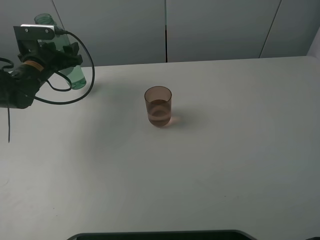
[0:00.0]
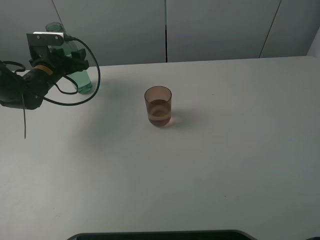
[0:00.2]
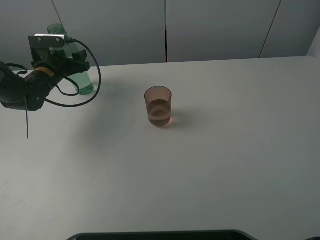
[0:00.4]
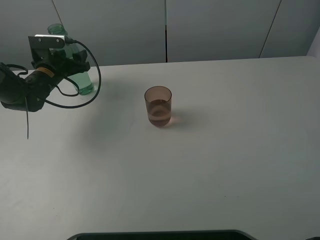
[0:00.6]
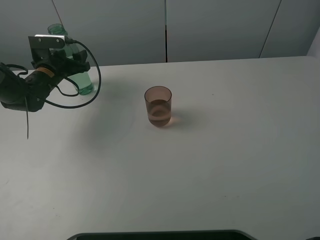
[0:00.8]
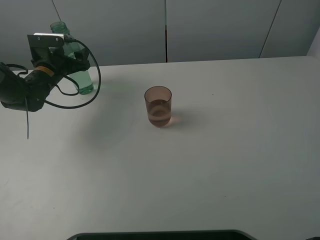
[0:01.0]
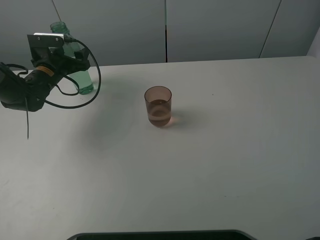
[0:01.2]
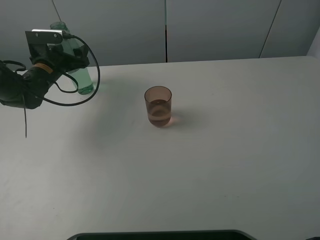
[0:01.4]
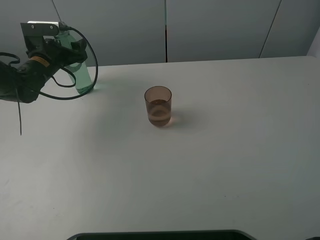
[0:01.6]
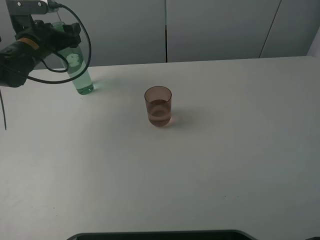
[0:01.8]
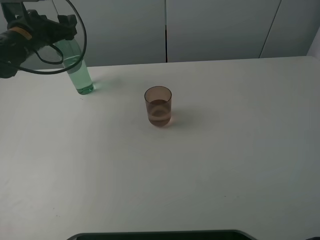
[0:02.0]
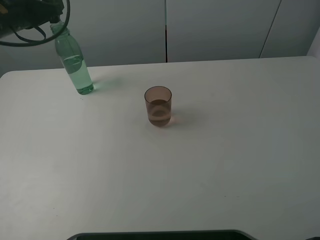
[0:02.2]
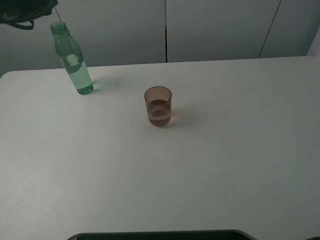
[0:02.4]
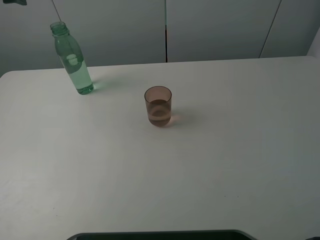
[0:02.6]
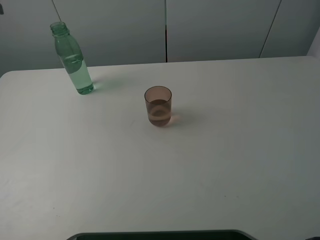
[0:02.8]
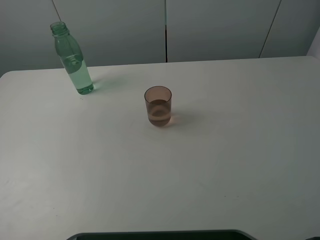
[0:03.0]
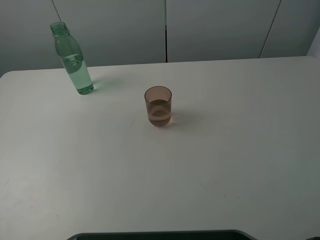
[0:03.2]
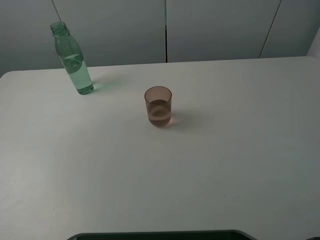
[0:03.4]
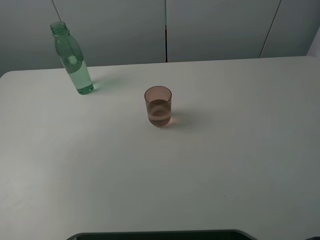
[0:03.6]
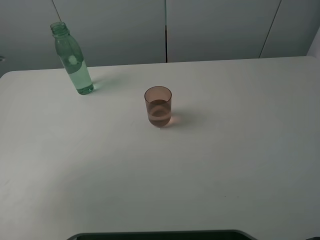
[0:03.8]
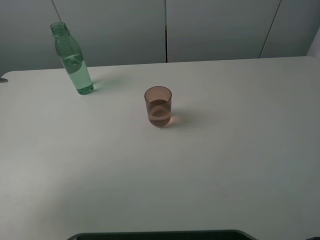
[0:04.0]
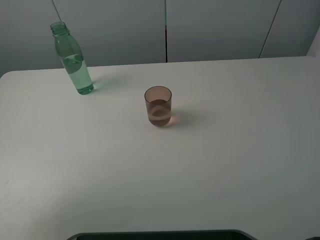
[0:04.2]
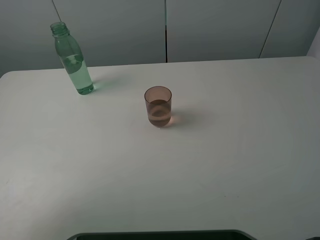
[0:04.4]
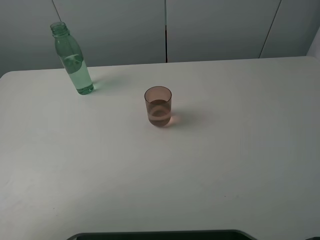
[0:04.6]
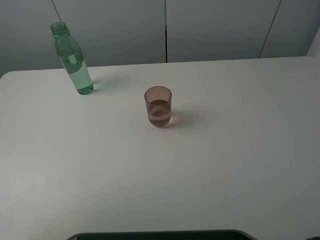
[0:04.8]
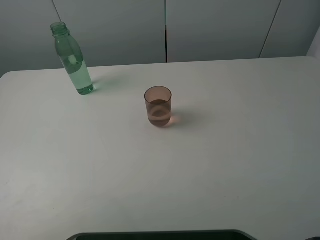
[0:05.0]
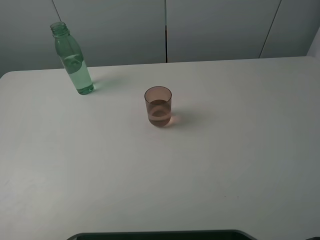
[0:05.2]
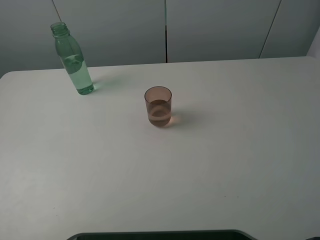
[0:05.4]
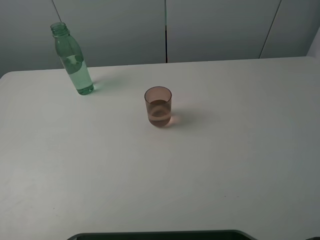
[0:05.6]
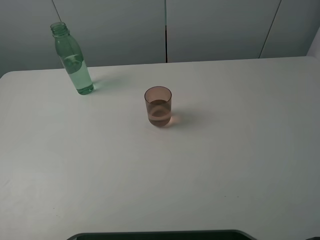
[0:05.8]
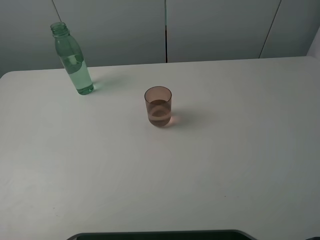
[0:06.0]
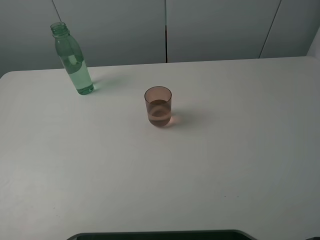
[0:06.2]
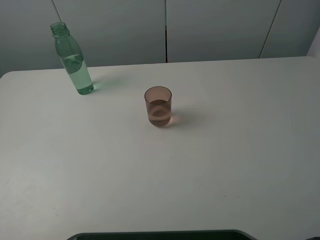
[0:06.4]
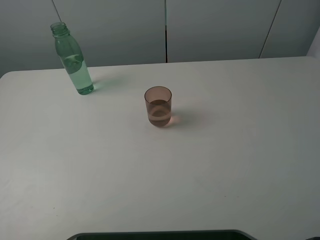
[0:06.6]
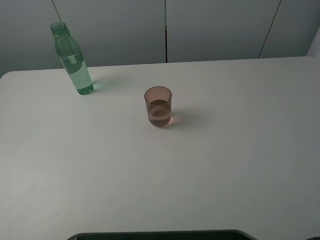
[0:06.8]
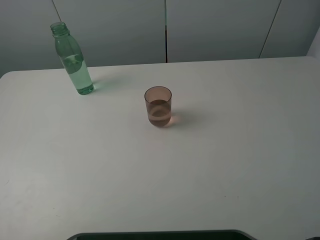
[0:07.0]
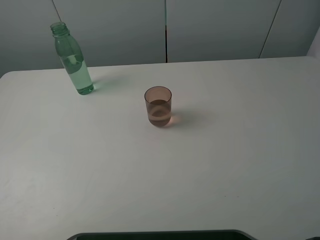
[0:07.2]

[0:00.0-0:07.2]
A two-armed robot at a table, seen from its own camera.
Task of the whole recording: pick up the bottle filled with water and pour it into the pink cup.
Step, 0:00.0 to 0:02.0: Place the green bottle with the left gripper.
0:00.0 to 0:01.4: The left gripper opens its fingers.
0:01.4 to 0:02.8: The left gripper heads upward and to the left, covering some 25 cm.
0:02.8 to 0:04.4: The left gripper is displaced backward and downward by about 25 cm.
0:04.4 to 0:05.8: The left gripper travels backward by some 10 cm.
0:05.8 to 0:07.2: Both grippers stay about where they are.

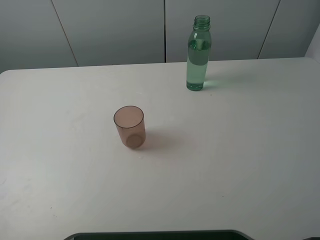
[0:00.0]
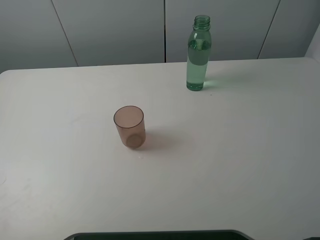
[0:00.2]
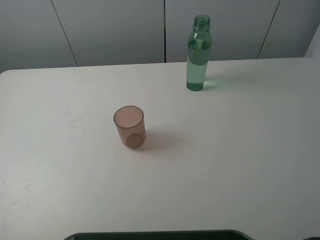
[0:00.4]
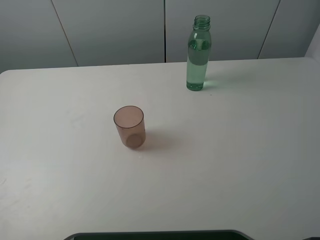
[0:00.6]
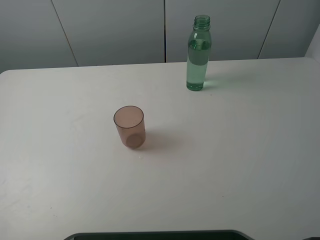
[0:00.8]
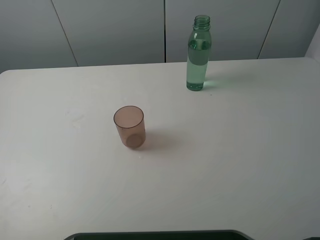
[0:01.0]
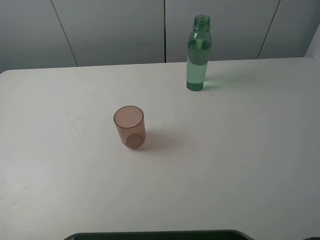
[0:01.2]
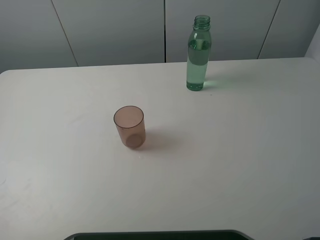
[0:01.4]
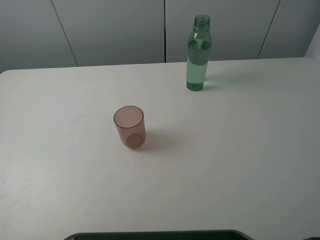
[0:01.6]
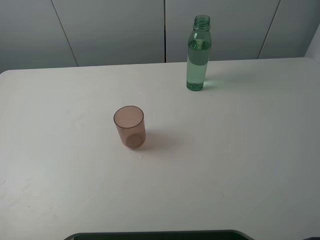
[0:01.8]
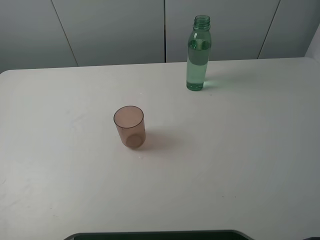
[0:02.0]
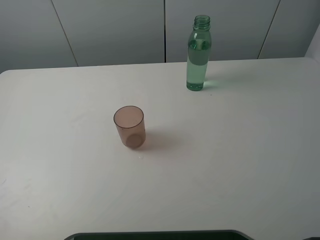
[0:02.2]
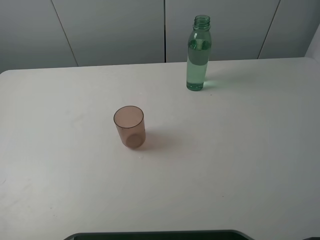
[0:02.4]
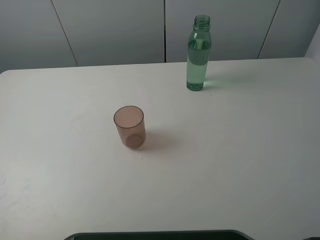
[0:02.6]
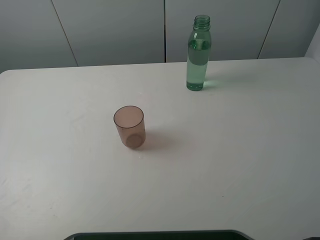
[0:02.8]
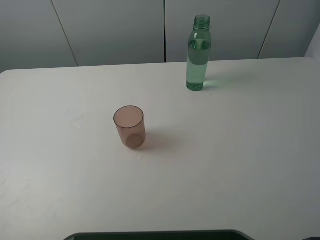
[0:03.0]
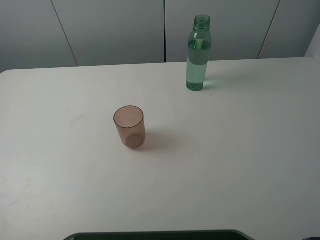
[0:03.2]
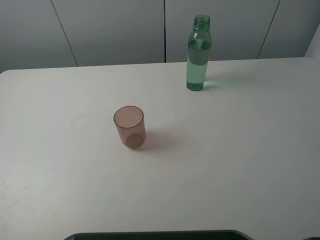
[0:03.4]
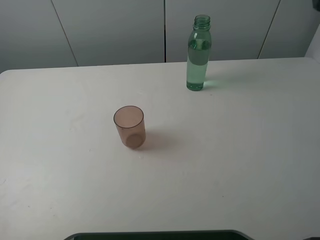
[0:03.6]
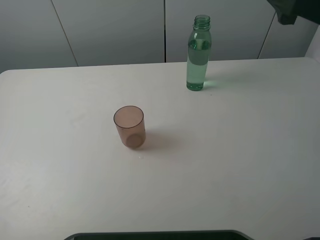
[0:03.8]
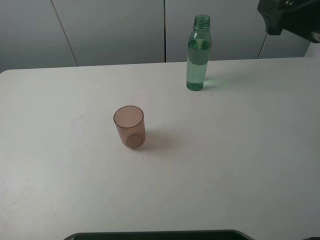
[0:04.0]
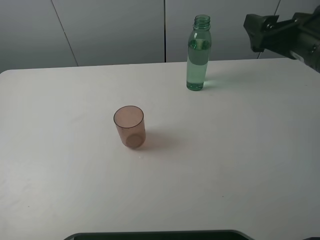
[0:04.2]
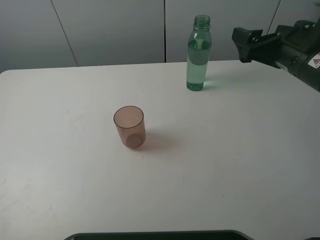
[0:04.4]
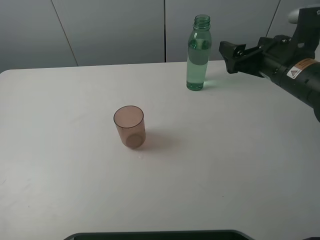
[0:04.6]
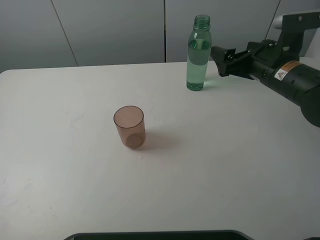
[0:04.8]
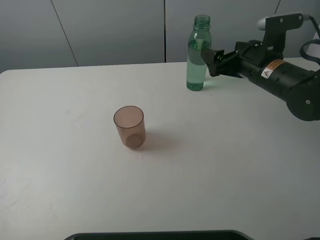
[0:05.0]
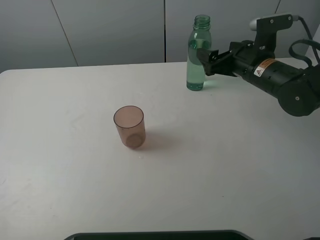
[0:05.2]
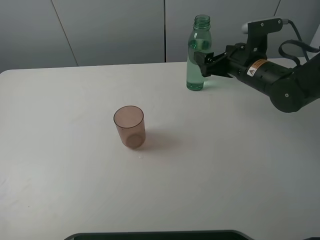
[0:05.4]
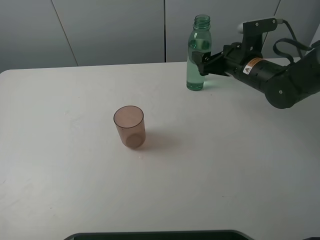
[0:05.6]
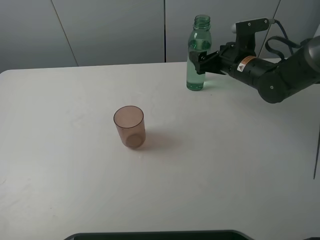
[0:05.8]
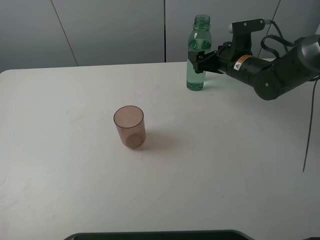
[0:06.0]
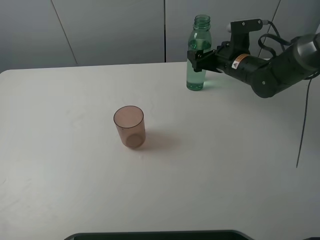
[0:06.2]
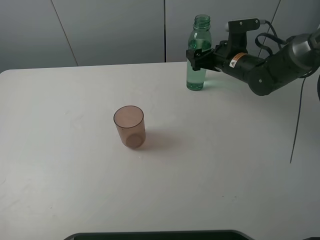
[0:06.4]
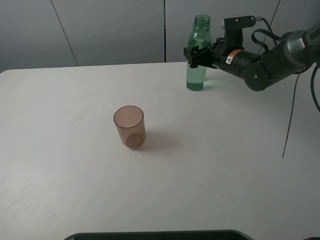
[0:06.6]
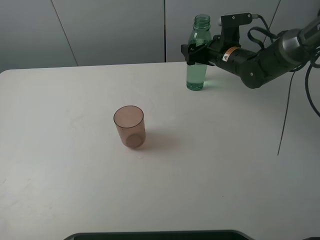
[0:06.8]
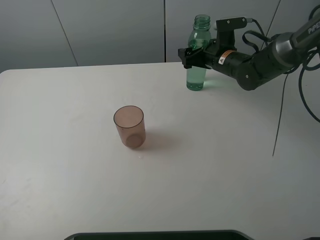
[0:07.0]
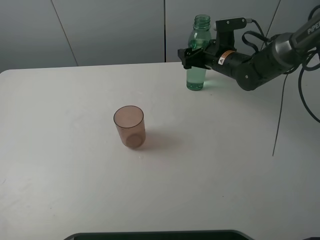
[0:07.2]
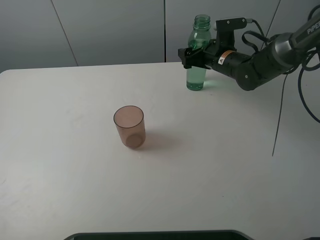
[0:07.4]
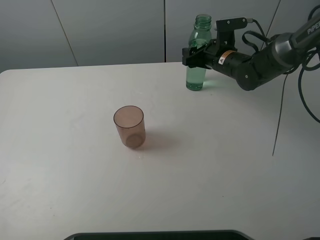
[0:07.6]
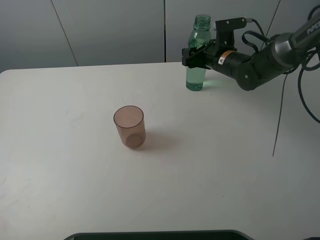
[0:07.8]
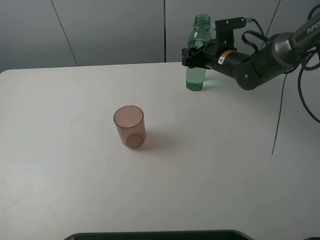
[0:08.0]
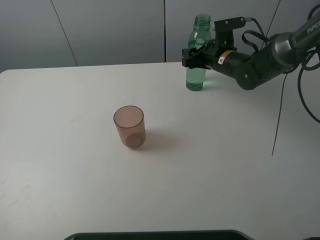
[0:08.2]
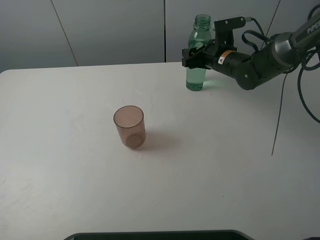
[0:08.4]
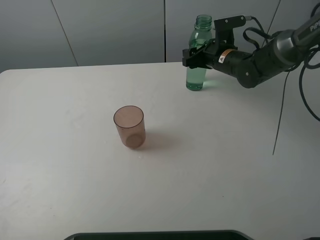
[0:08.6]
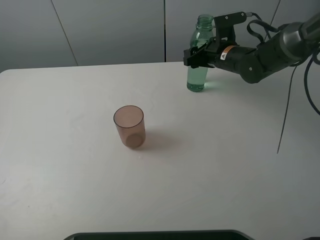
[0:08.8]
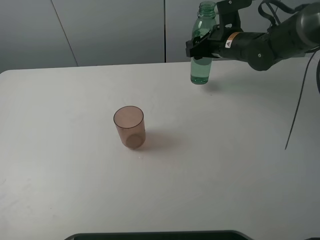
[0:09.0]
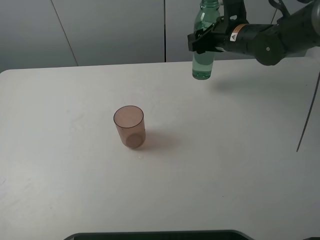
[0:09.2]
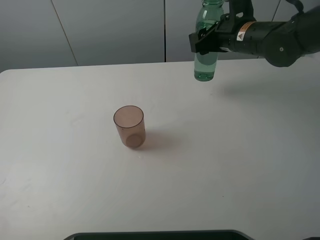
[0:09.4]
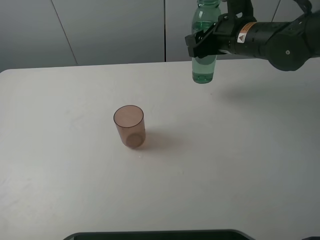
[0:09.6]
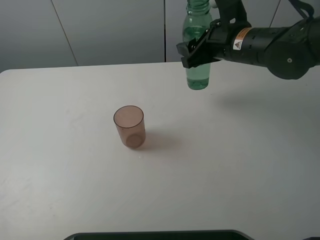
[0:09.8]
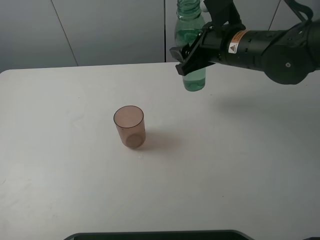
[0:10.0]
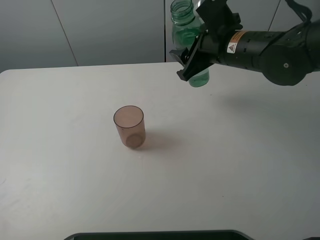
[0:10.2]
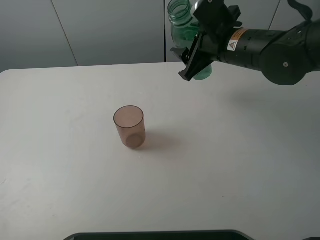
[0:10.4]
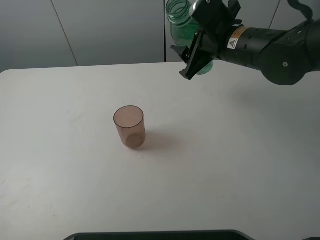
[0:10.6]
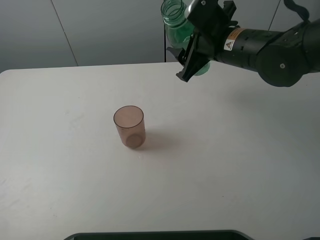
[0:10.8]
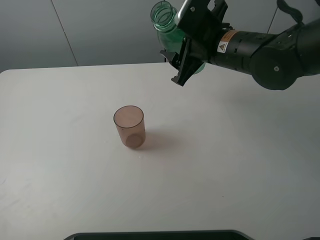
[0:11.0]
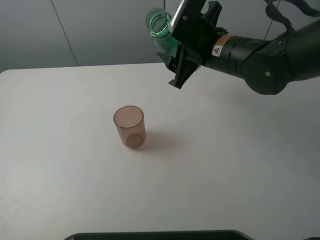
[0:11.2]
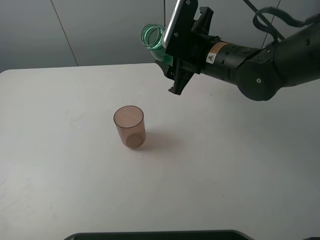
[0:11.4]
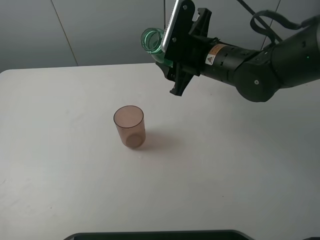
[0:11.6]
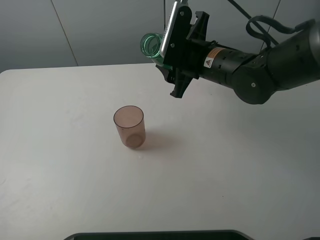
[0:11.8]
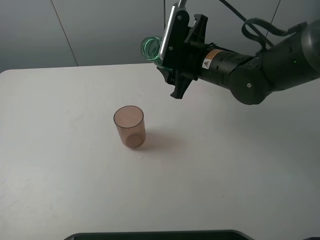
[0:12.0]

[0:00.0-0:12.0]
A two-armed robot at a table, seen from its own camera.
Task of the whole recording: pick up the bottle filled with water and pour it into the pink cup.
Step, 0:00.0 to 0:08.2: Grasp the green bottle with the right gripper.
0:00.0 to 0:01.6: Both grippers stay put.
0:03.0 to 0:04.4: The right gripper goes about 20 cm forward and downward.
0:04.4 to 0:06.0: The right gripper travels forward and downward by some 15 cm.
0:06.0 to 0:07.6: The right gripper closes its fingers.
0:07.6 to 0:09.0: The right gripper heads upward, covering some 5 cm.
0:09.0 to 0:10.4: The right gripper shifts some 10 cm backward.
0:10.4 to 0:12.0: The right gripper shifts by some 5 cm.

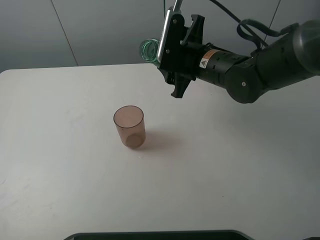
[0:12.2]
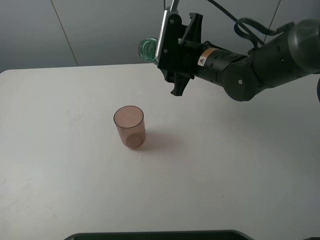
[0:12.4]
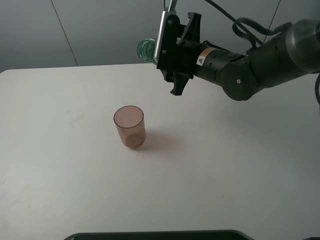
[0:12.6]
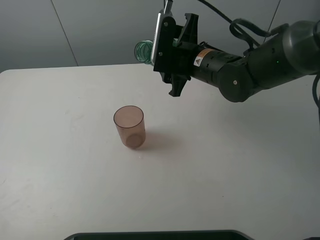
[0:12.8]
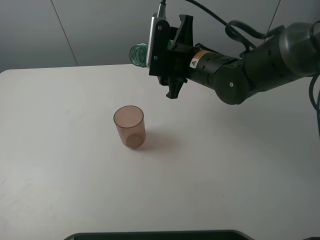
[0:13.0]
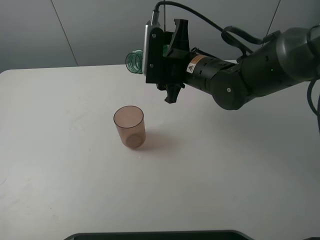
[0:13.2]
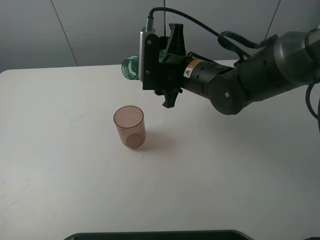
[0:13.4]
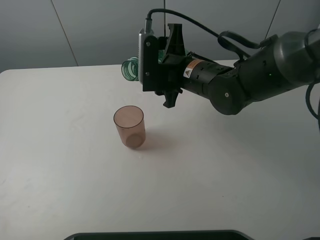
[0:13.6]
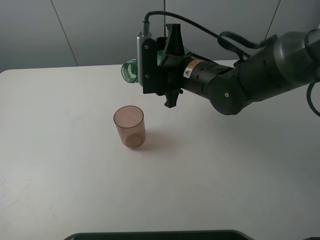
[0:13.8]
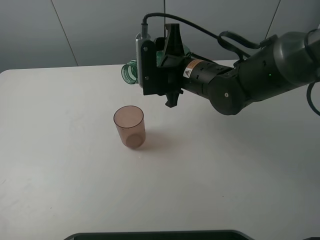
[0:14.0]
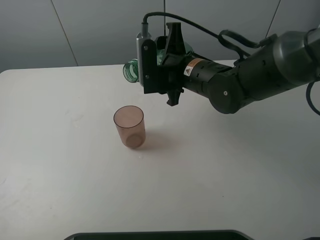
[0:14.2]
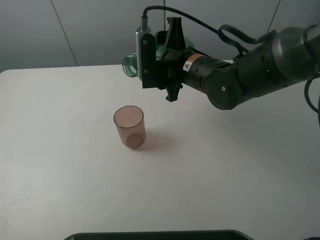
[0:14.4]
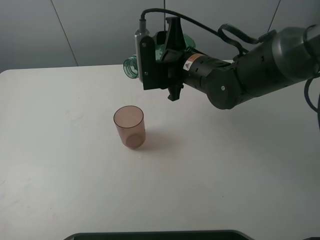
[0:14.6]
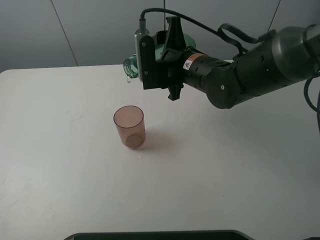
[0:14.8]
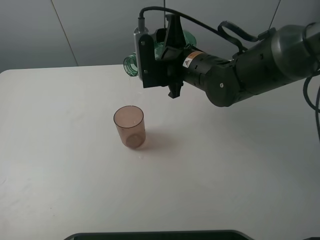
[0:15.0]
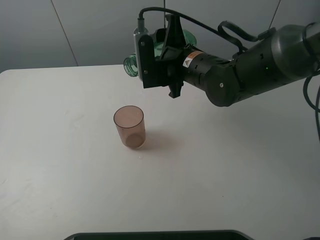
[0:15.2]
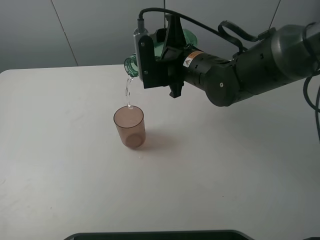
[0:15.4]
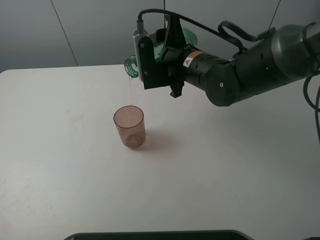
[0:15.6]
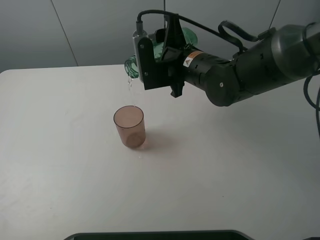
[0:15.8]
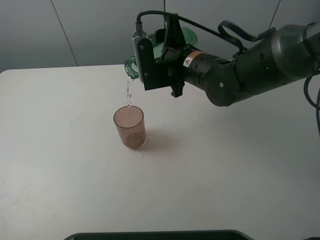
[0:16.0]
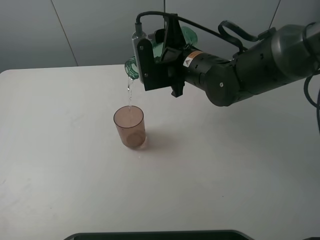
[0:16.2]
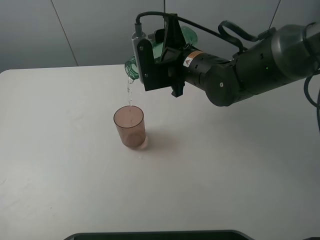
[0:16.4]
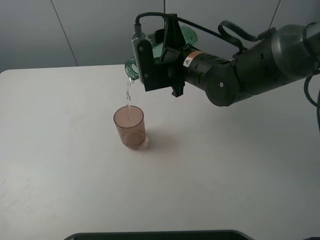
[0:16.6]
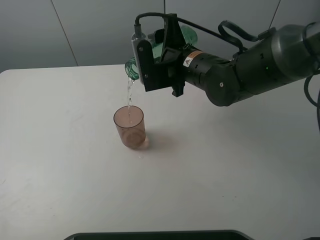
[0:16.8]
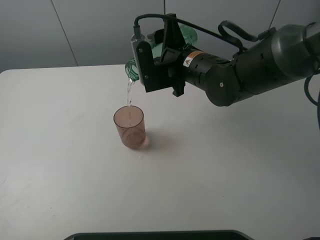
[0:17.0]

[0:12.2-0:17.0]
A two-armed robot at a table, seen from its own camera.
Task of the whole recording: pick up the bottle filled with water and pour it into the pink cup.
0:12.2 to 0:13.8: The grippers make only small movements.
0:13.8 to 0:17.0: There are only small adjustments of the grippers.
